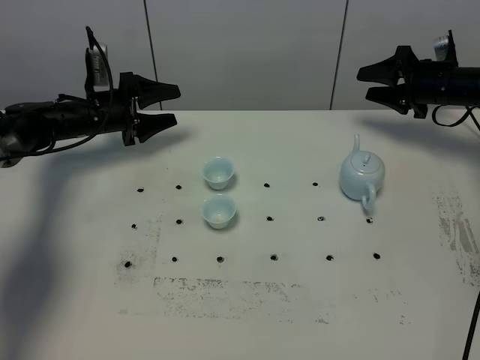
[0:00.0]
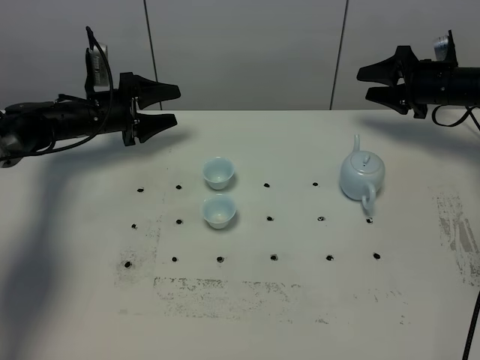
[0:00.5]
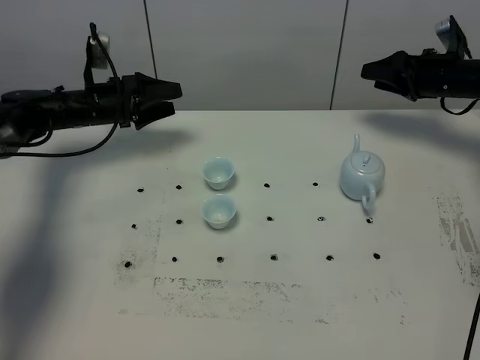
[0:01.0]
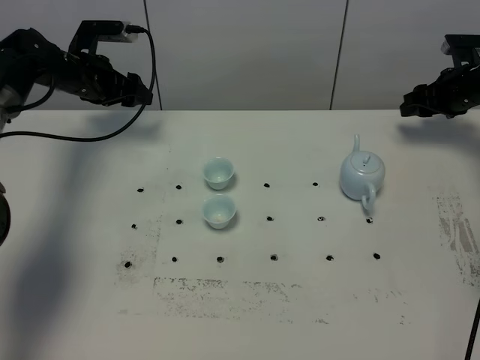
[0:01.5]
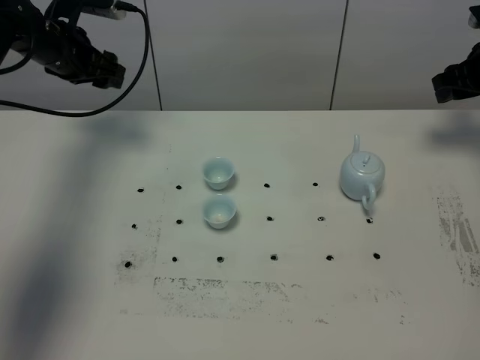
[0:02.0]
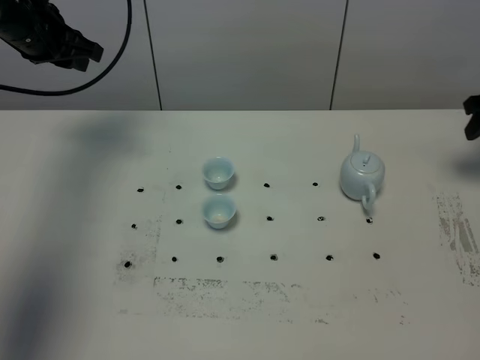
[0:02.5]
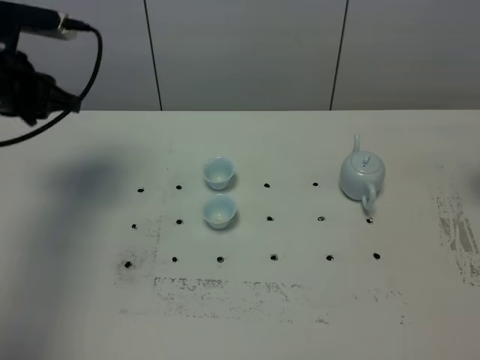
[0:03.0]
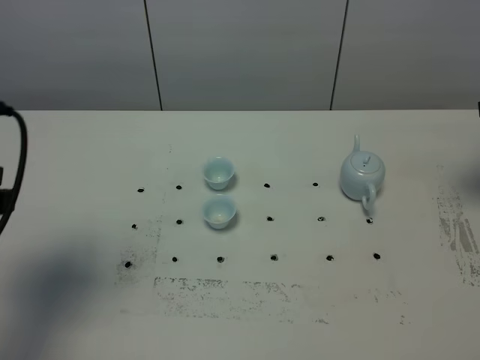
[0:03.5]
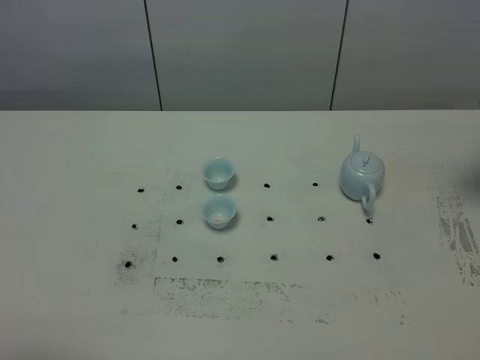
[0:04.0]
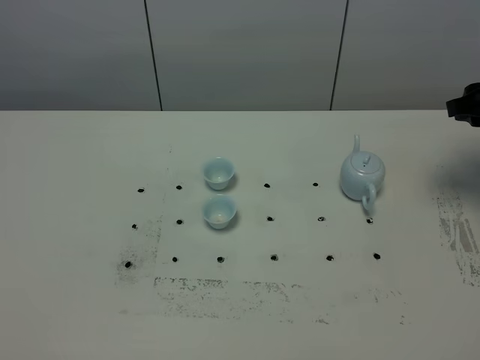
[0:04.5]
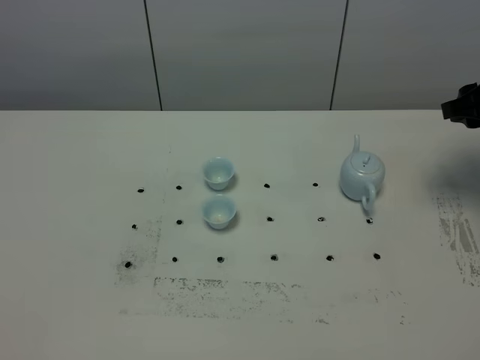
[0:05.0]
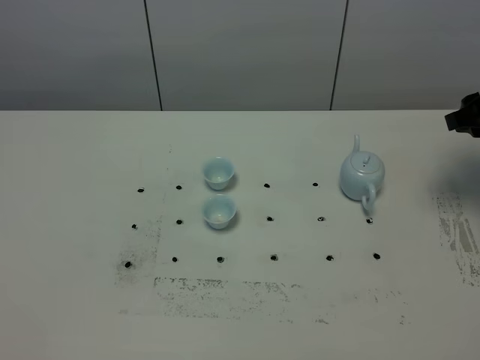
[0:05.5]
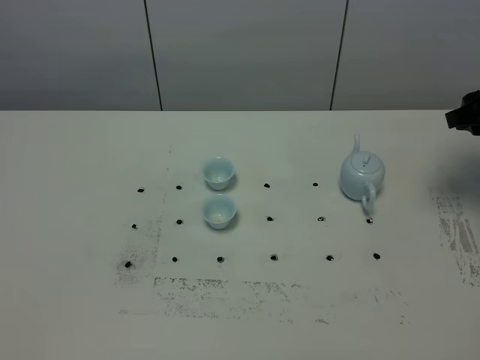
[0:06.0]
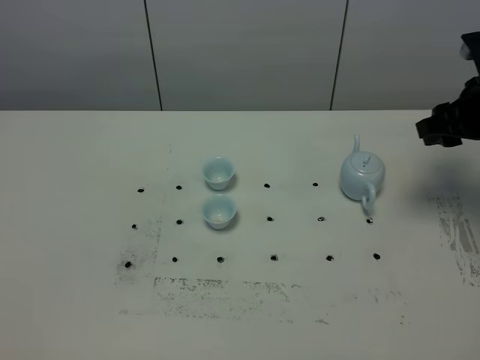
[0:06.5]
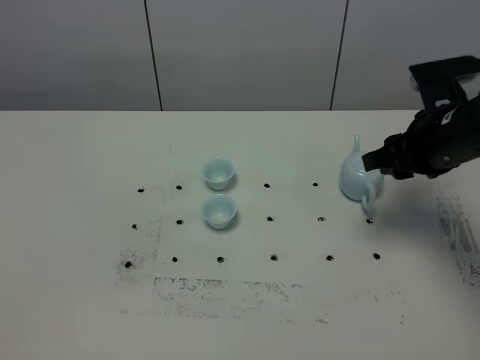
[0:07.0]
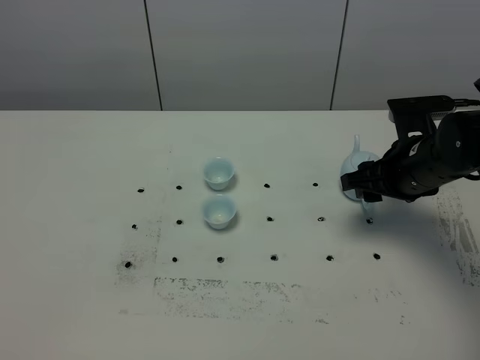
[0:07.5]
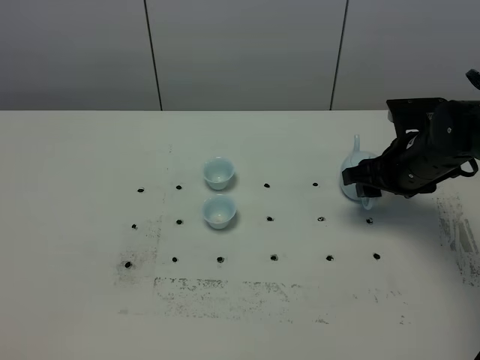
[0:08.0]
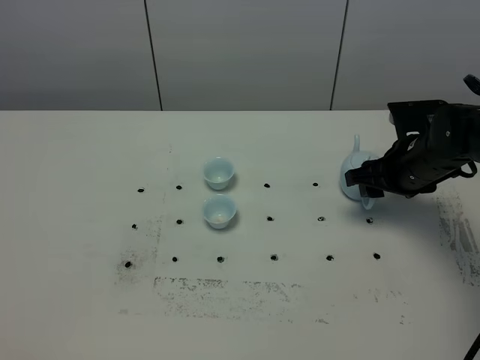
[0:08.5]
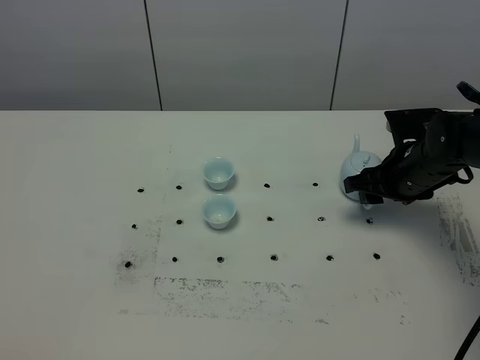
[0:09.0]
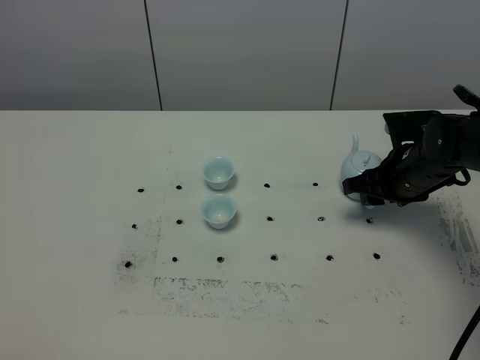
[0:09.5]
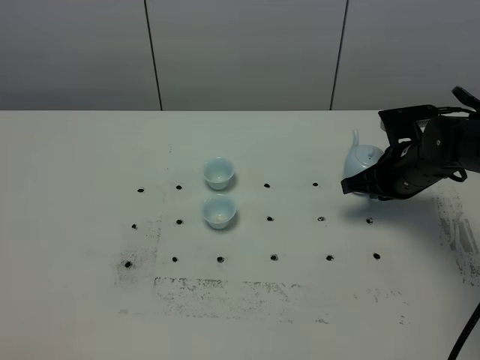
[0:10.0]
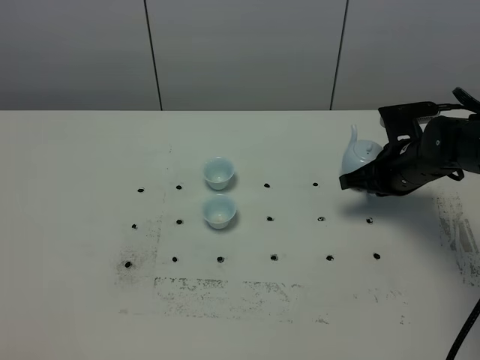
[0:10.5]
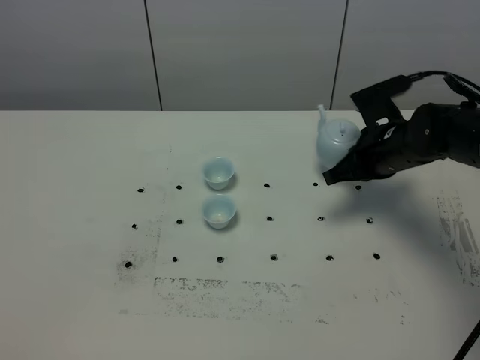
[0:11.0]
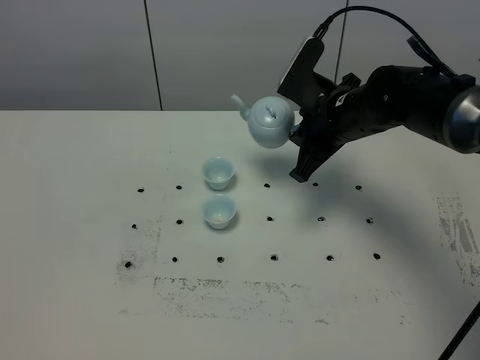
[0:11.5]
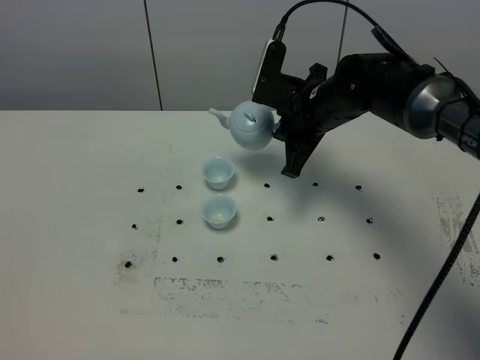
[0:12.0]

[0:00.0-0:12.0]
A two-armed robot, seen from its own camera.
Task of the whole recording: grasp the blue porcelain teapot and pour the tea into the two blue porcelain teacups one by one, put the blue porcelain teapot back in its original place.
Step, 0:00.0 to 0:10.5: Pick up the teapot with the right gripper.
0:00.0 to 0:02.0: The right gripper is displaced upward and to the right by approximately 10 cm; the left gripper travels upward by some 15 cm.
0:02.0 to 0:04.0: The right gripper goes about 15 cm backward; the left gripper travels backward by approximately 50 cm, and closes its fingers.
0:06.0 to 0:08.0: The right gripper shifts about 15 cm to the left and downward.
0:08.0 to 0:10.0: The right gripper closes its fingers.
0:10.0 to 0:12.0: The right gripper heads to the left and upward, covering some 15 cm.

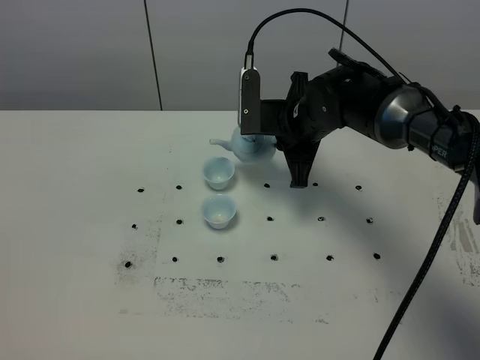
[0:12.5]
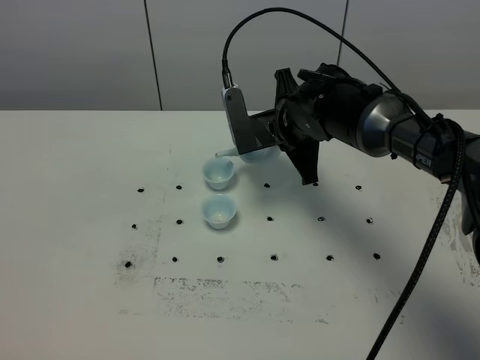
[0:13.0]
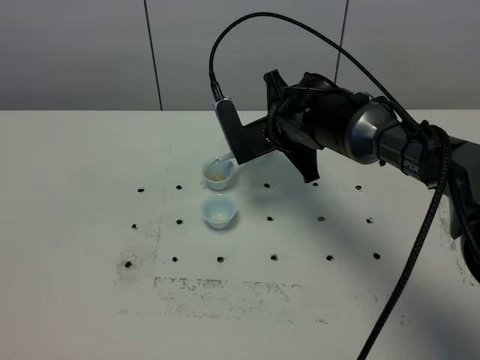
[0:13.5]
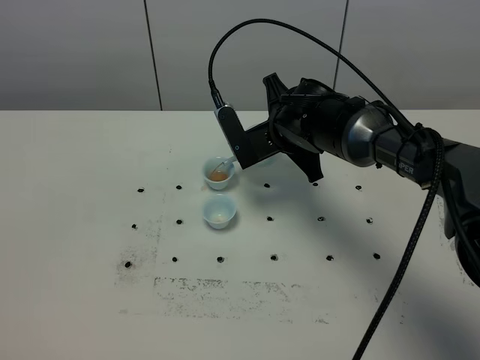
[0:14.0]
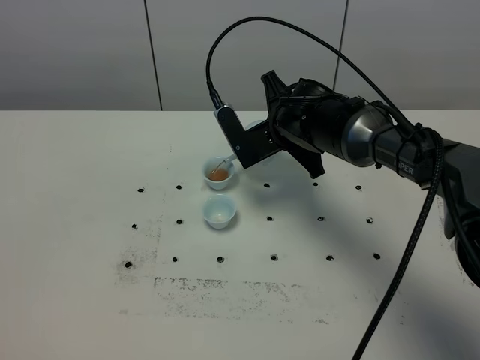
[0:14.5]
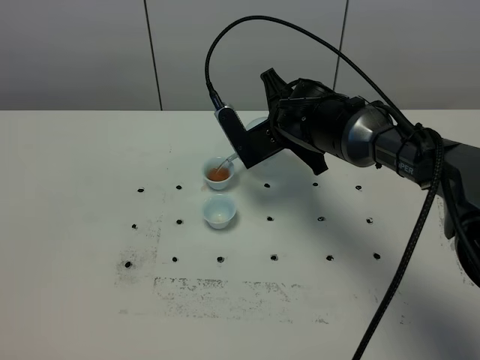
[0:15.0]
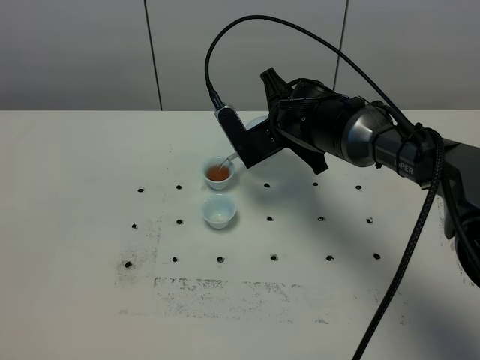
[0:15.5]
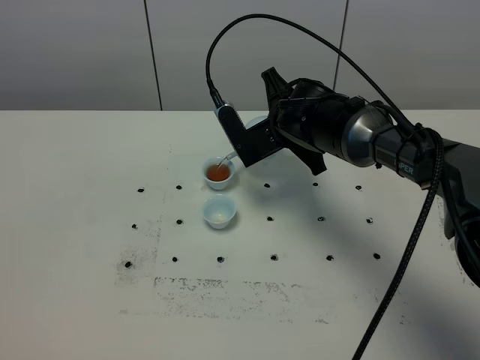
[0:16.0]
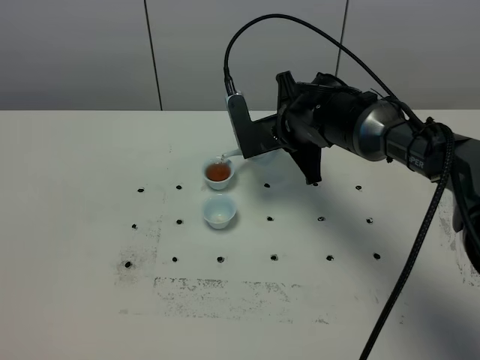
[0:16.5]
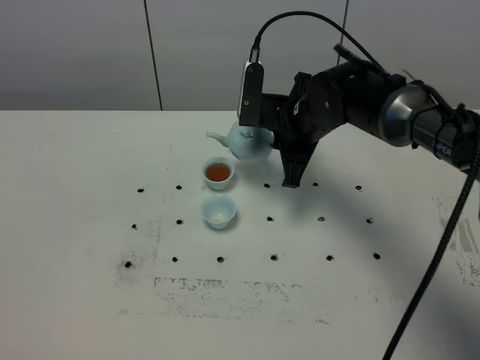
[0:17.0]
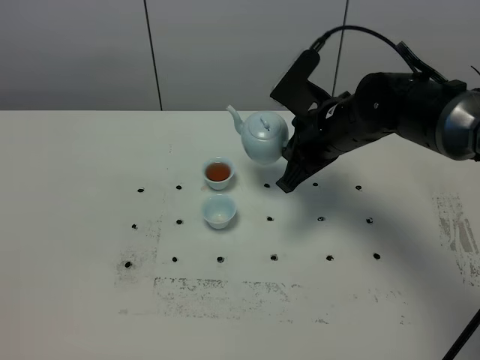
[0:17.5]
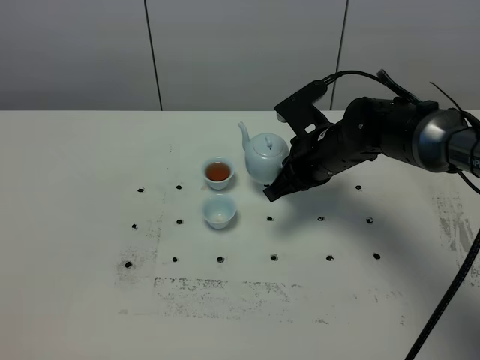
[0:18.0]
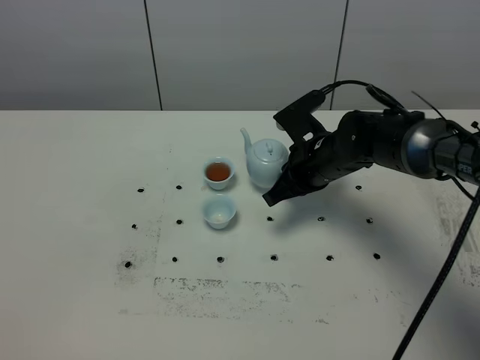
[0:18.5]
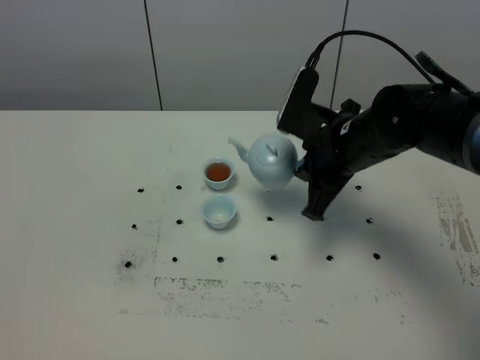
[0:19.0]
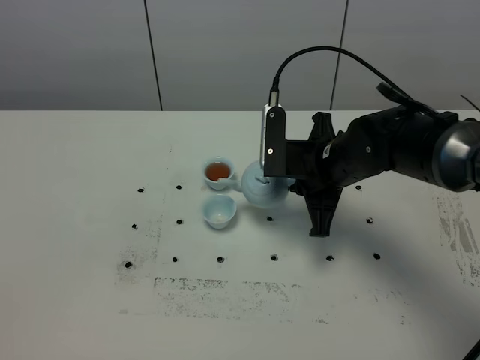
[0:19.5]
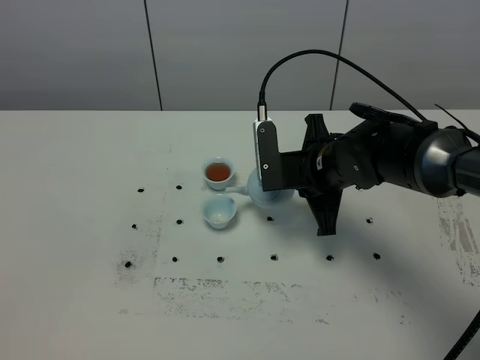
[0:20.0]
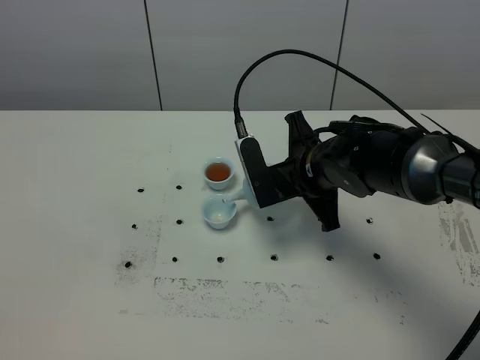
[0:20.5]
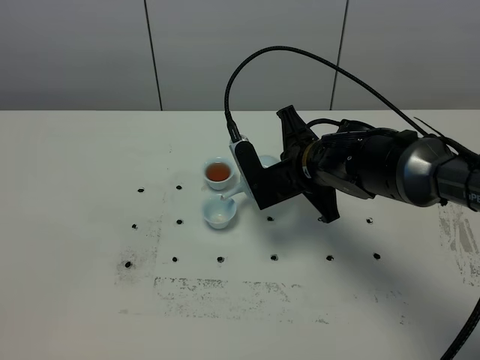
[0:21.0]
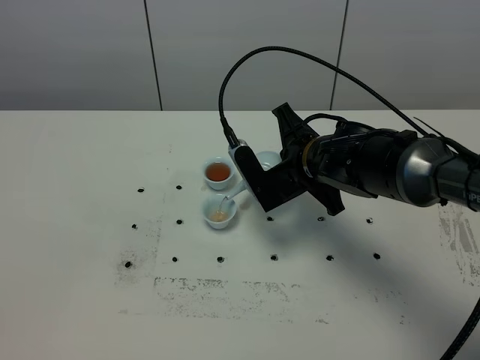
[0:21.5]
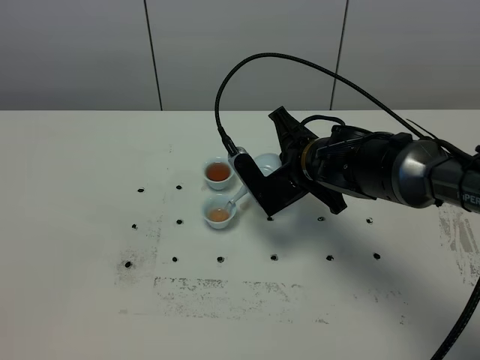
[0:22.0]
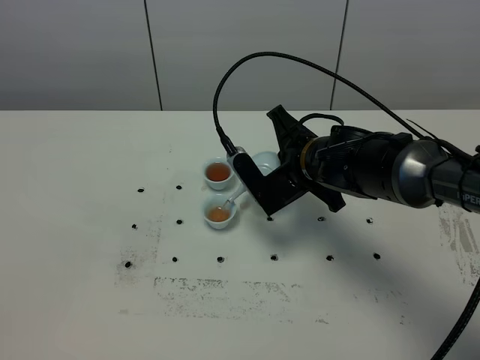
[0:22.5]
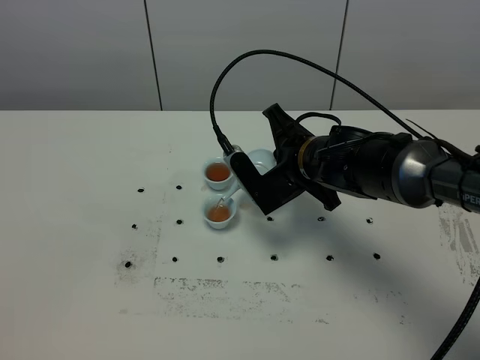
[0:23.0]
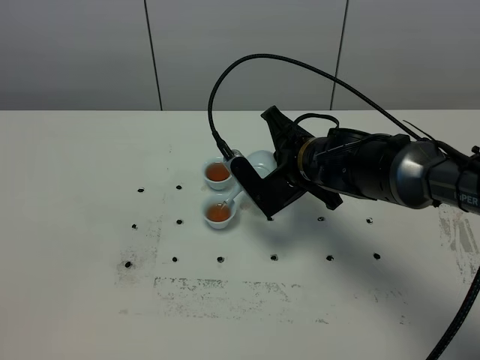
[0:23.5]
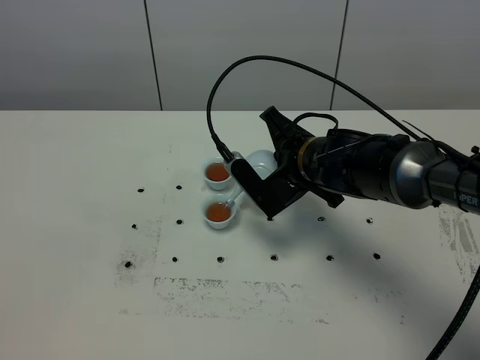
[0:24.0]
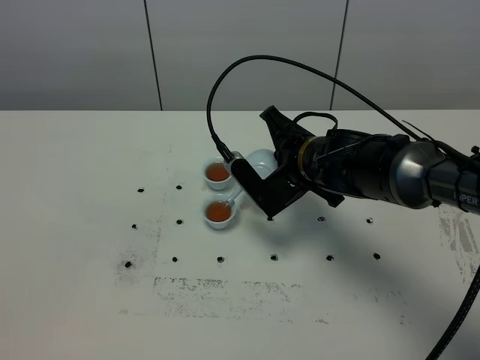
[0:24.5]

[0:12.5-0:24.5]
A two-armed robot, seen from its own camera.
Task of the whole recording: grasp the blue porcelain teapot and pour the tea into the two blue porcelain teacups one by one, put the blue porcelain teapot back in its original place.
0:14.5 to 0:16.5: The grippers move only a little.
0:16.5 to 0:18.5: The right gripper moves about 5 cm.
0:20.5 to 0:22.5: The grippers make only small movements.
0:22.5 to 0:24.5: The grippers stay close to where they were, moving slightly.

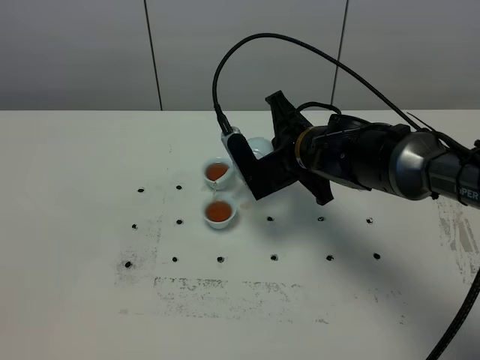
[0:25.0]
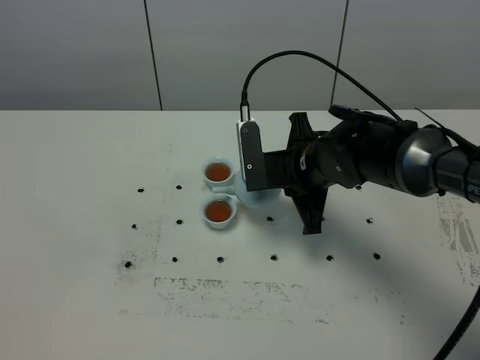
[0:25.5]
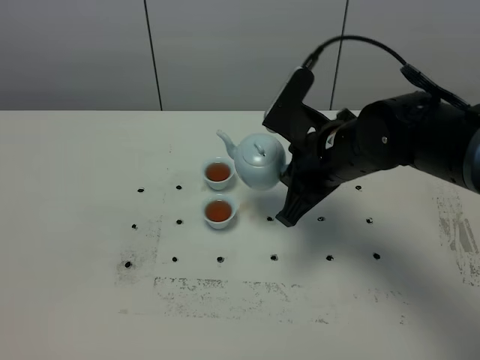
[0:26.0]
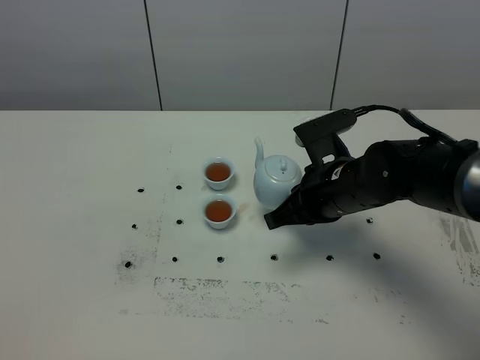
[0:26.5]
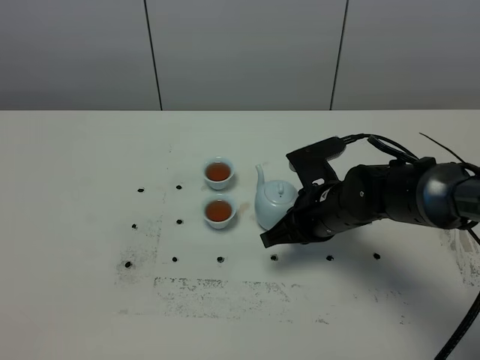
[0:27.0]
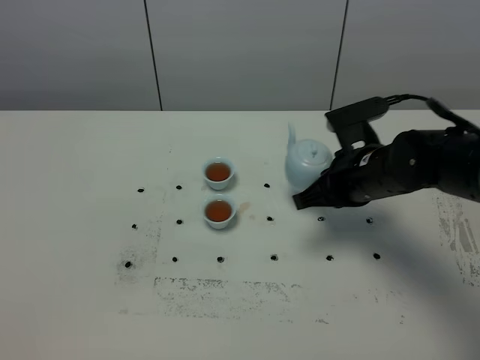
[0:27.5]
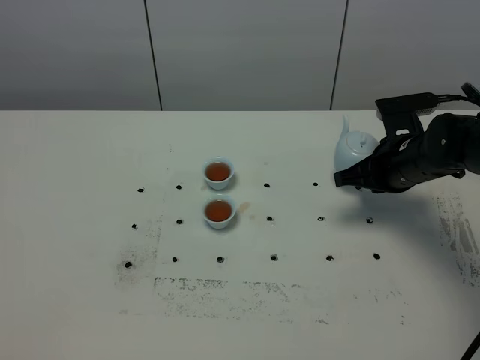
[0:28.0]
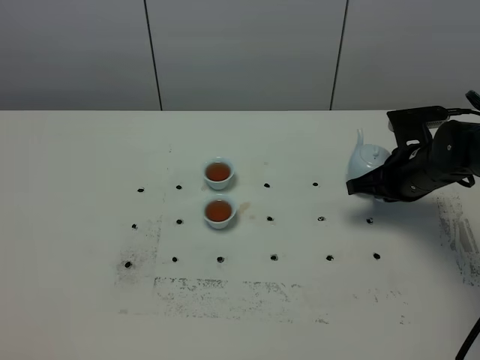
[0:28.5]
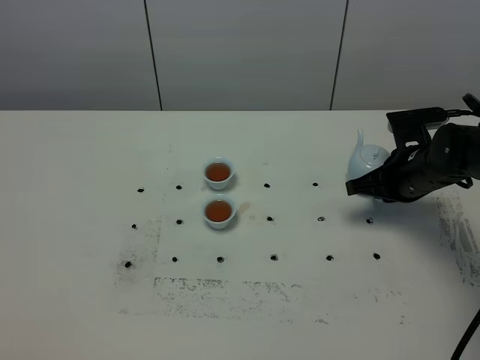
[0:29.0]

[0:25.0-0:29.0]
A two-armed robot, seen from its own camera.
Task of the whole recording: grasp the blue porcelain teapot and pour the tea into the two blue porcelain teacups one by one, put the blue porcelain teapot back in its original place.
0:25.0 to 0:27.0: The right gripper heads downward, covering approximately 5 cm.
0:27.0 to 0:29.0: The right gripper goes about 15 cm to the right and forward.
